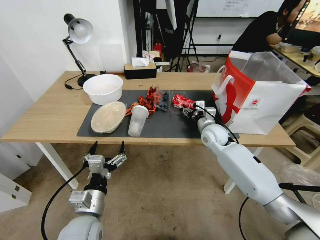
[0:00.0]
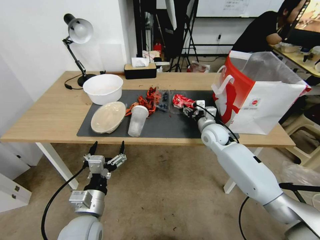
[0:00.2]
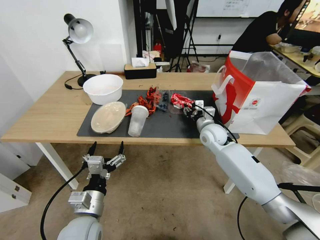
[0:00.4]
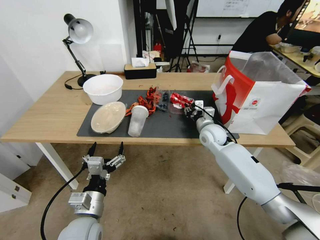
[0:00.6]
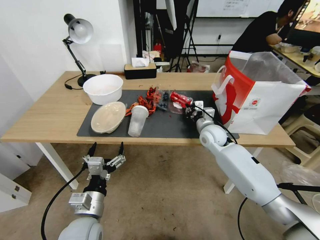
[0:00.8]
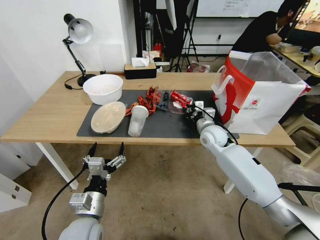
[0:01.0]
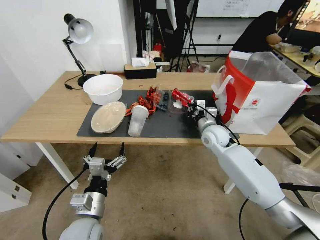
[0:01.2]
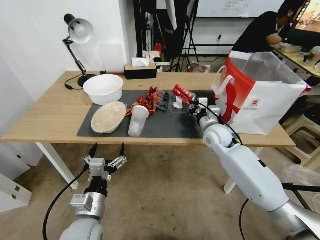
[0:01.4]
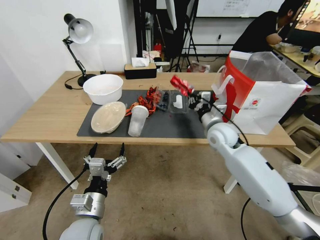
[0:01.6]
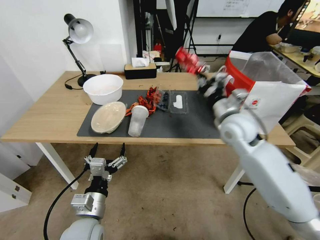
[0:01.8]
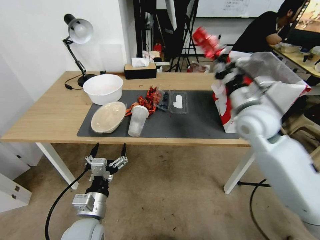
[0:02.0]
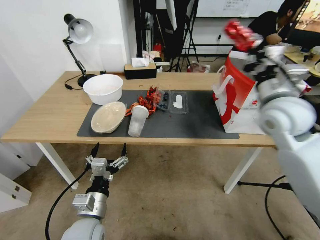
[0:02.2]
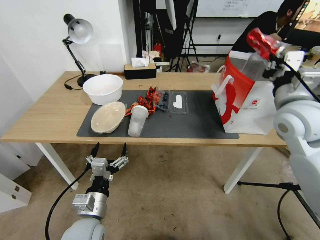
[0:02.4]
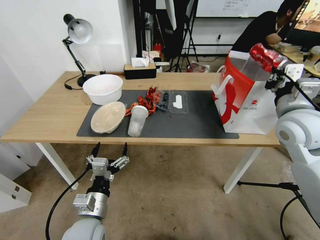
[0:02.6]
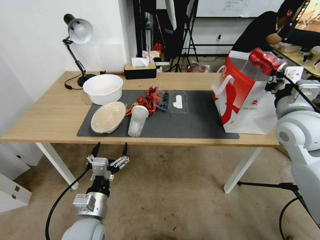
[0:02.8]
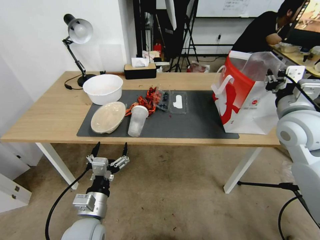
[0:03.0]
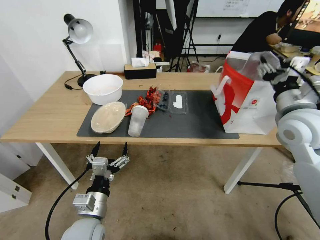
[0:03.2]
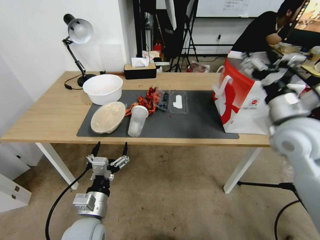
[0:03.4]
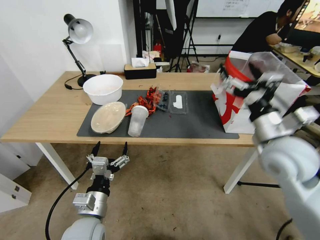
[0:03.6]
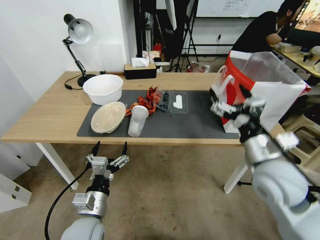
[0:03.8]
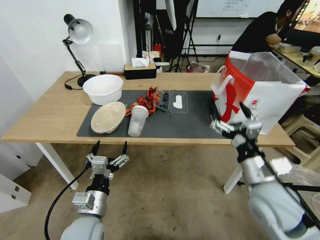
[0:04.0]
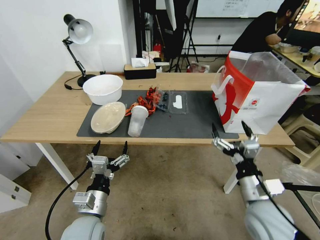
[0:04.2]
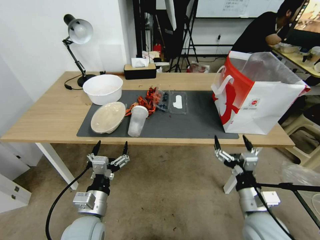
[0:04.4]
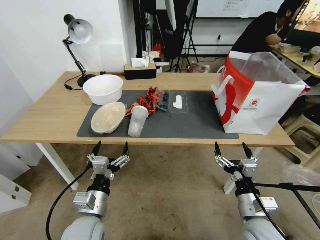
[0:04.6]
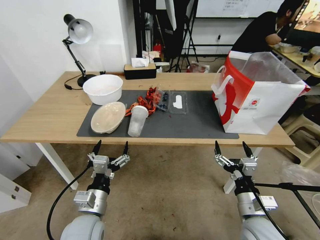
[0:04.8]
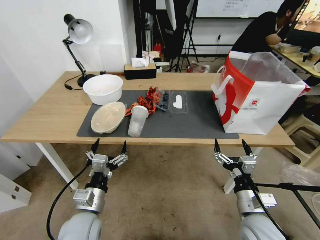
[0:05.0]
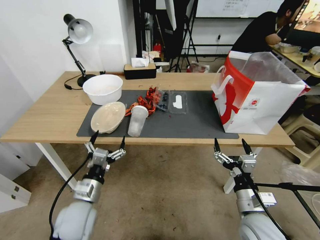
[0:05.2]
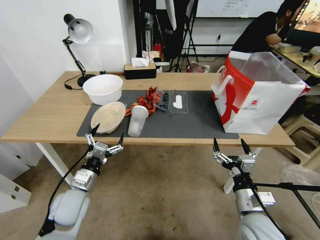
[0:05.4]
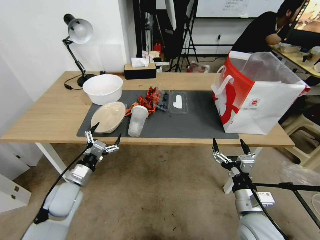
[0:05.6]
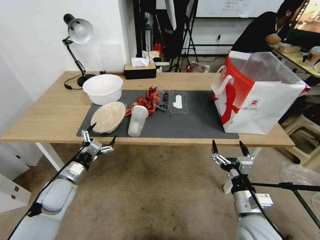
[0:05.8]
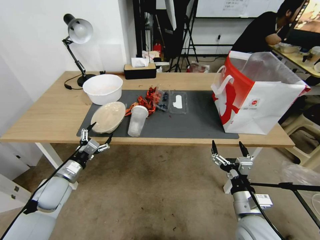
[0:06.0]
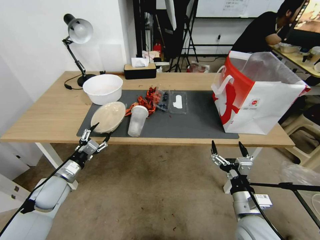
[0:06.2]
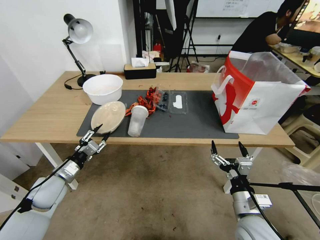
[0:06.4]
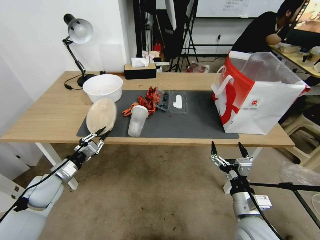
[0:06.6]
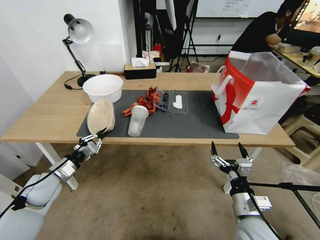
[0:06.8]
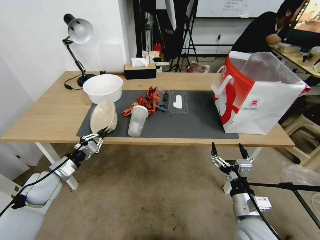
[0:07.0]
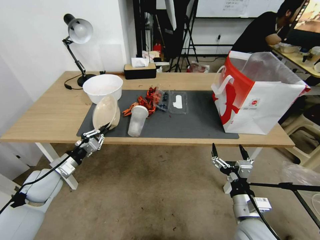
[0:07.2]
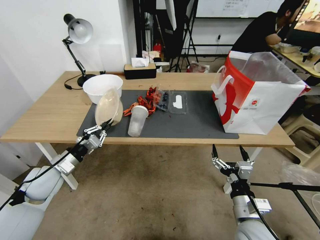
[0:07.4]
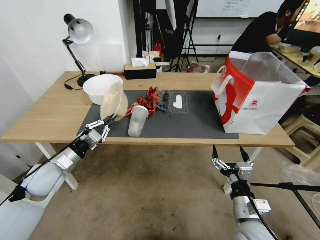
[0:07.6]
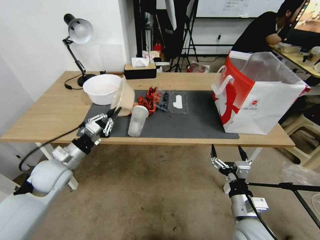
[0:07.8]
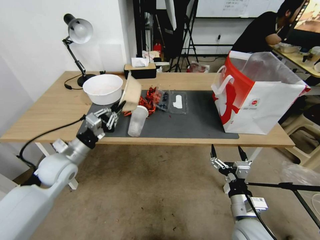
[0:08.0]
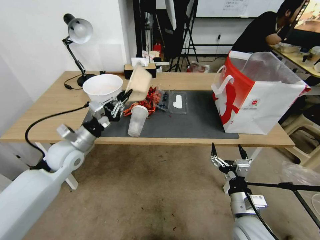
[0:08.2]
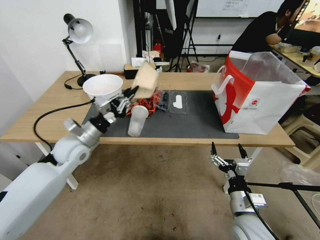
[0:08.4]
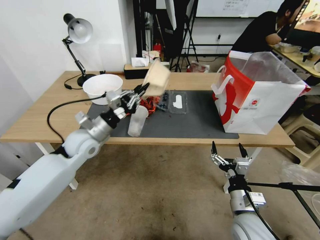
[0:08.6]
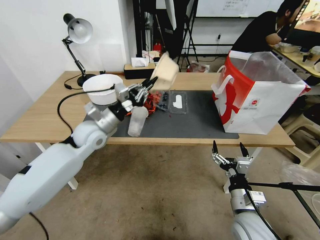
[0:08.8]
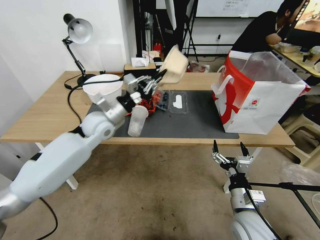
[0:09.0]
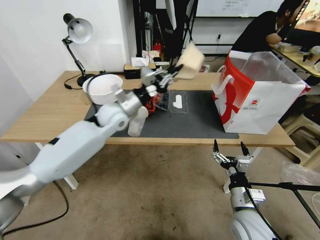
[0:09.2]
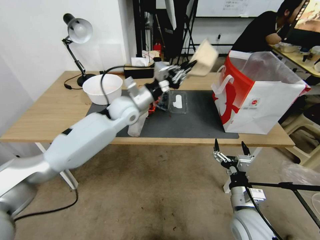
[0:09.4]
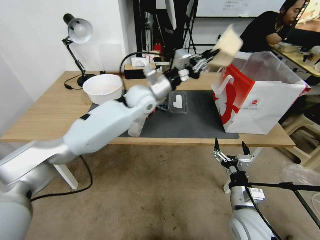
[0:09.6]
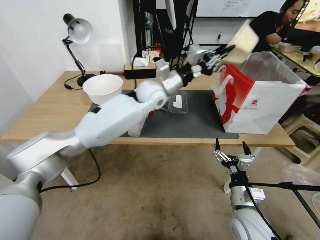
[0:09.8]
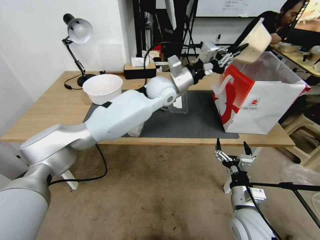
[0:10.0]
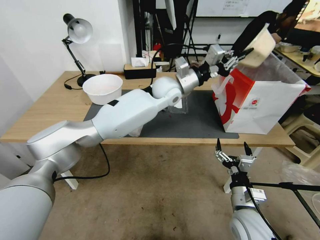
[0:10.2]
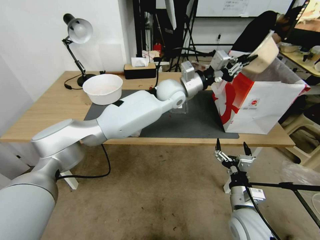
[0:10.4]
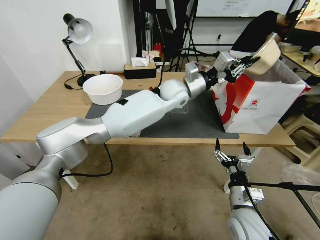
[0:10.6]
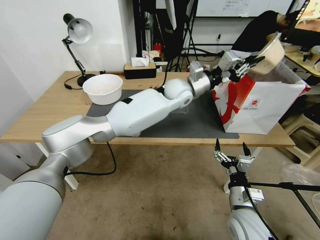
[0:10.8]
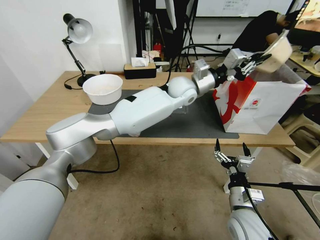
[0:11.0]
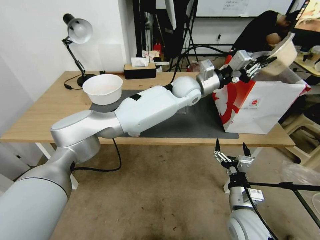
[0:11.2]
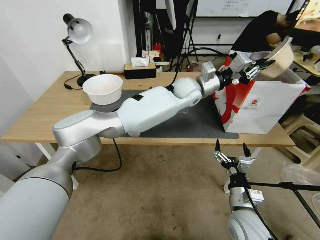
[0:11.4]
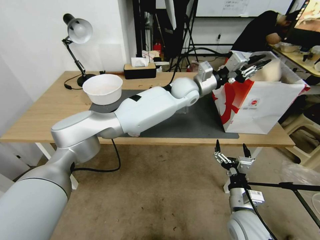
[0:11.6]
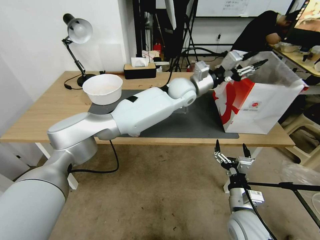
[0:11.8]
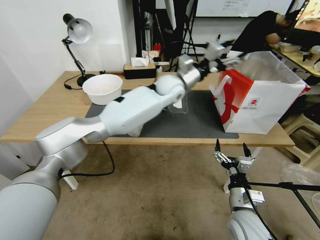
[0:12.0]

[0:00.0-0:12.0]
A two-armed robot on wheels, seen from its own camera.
0:00.0 to 0:01.6: The right gripper changes place by about 5 cm, and closes.
0:01.6 to 0:03.0: The right gripper is displaced upward, to the right and backward by roughly 20 cm.
0:03.0 to 0:04.4: The right gripper moves downward and backward, roughly 30 cm, and opens up.
0:04.4 to 0:06.0: The left gripper is displaced to the left and forward by some 20 cm.
0:06.0 to 0:07.6: The left gripper shifts about 5 cm upward, and closes its fingers.
0:07.6 to 0:09.0: The left gripper shifts about 20 cm to the right, forward and upward.
0:09.0 to 0:10.4: The left gripper moves to the right, approximately 25 cm.
0:10.4 to 0:12.0: The left gripper opens its fingers.

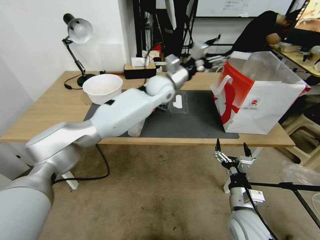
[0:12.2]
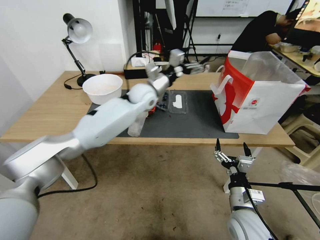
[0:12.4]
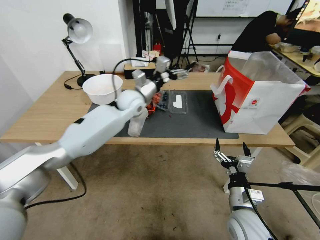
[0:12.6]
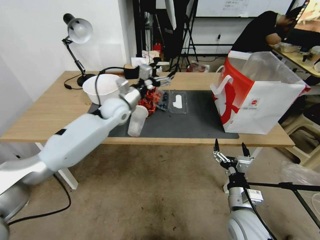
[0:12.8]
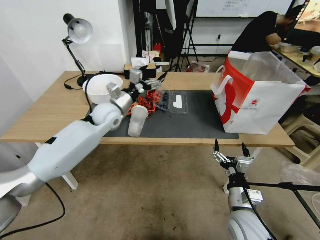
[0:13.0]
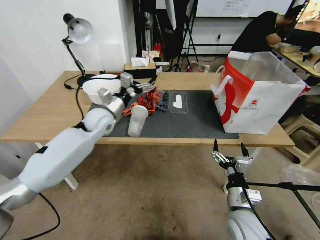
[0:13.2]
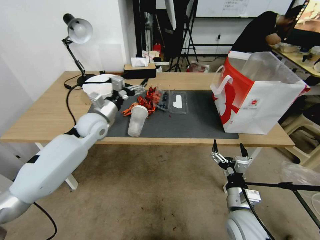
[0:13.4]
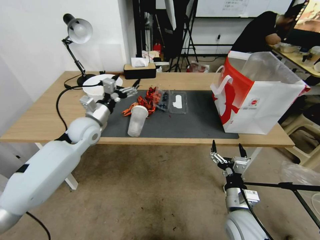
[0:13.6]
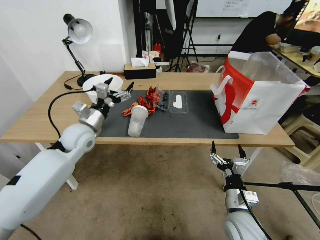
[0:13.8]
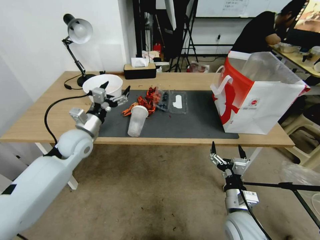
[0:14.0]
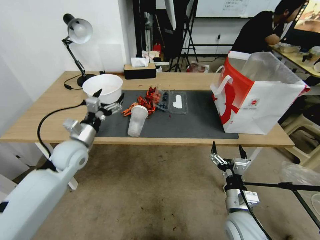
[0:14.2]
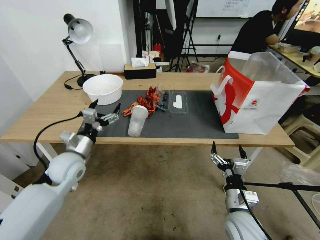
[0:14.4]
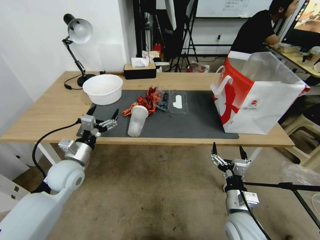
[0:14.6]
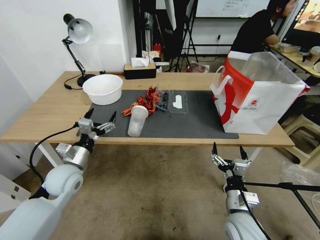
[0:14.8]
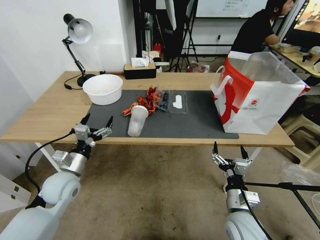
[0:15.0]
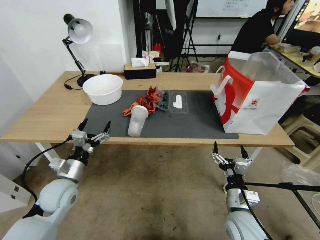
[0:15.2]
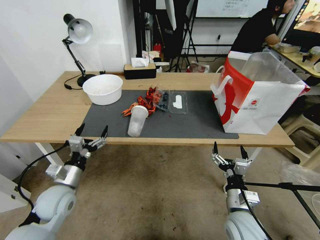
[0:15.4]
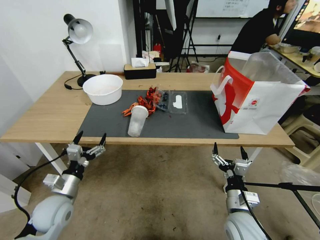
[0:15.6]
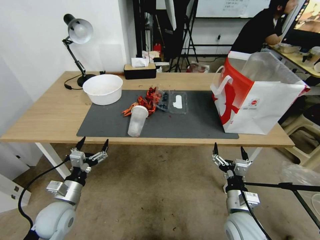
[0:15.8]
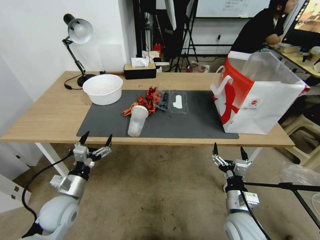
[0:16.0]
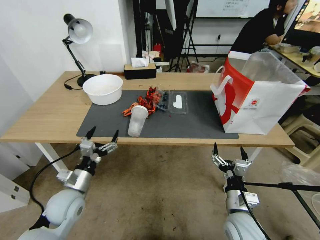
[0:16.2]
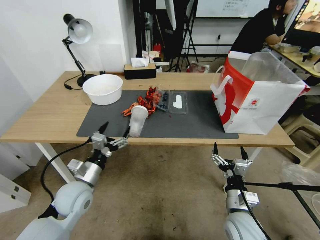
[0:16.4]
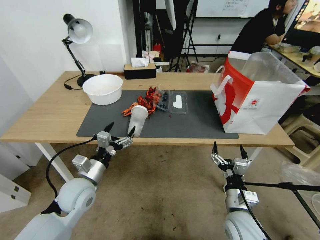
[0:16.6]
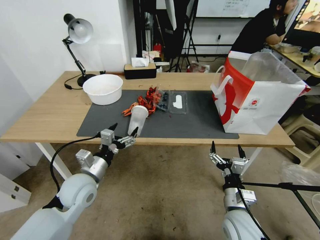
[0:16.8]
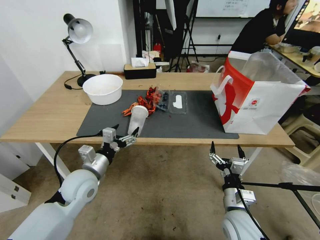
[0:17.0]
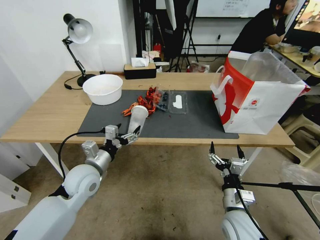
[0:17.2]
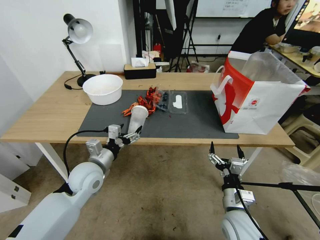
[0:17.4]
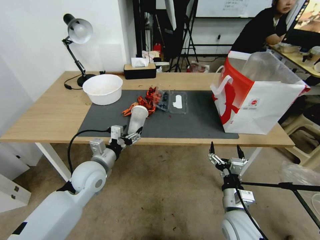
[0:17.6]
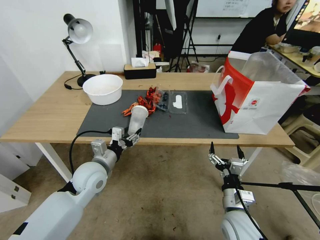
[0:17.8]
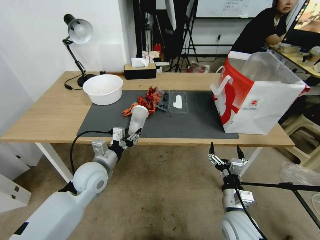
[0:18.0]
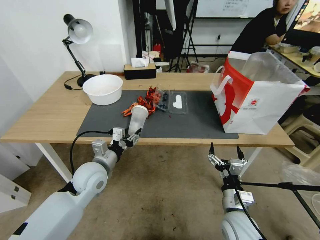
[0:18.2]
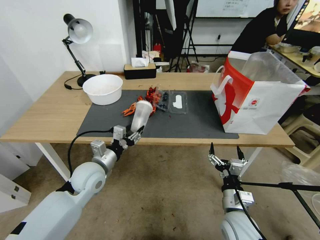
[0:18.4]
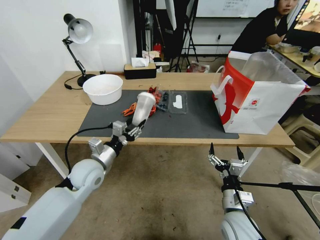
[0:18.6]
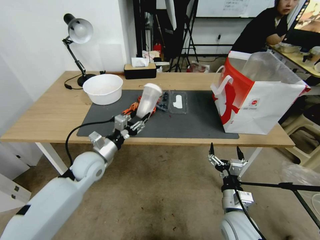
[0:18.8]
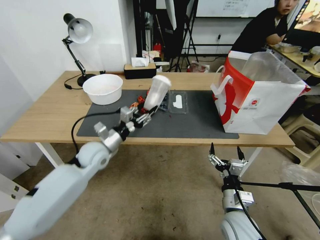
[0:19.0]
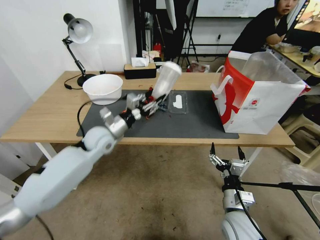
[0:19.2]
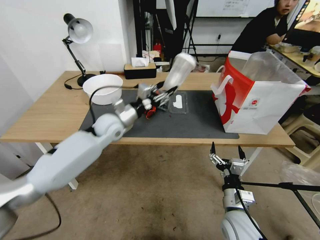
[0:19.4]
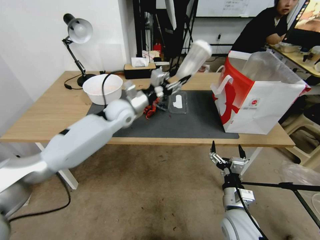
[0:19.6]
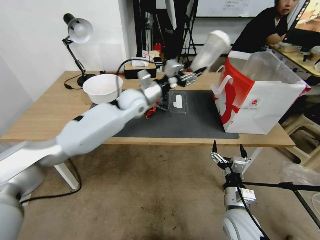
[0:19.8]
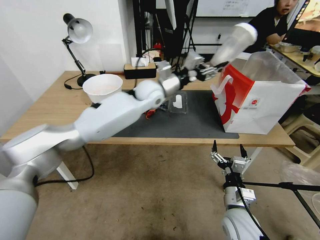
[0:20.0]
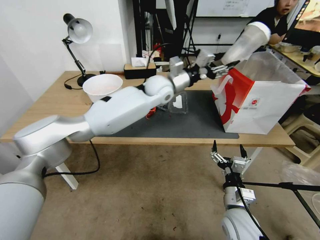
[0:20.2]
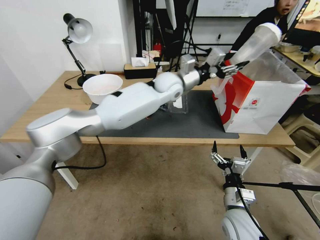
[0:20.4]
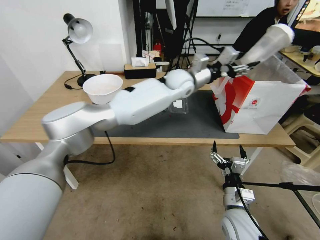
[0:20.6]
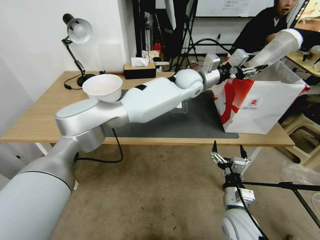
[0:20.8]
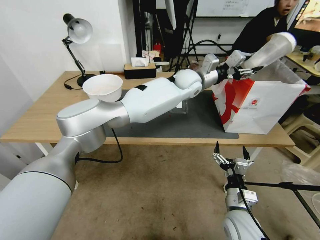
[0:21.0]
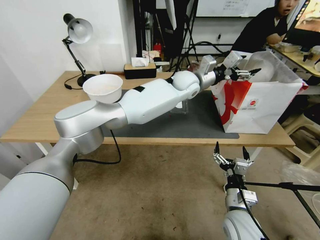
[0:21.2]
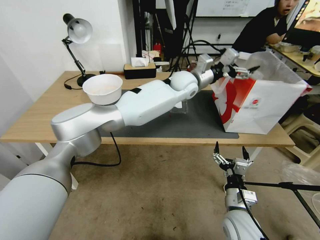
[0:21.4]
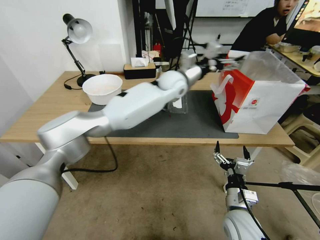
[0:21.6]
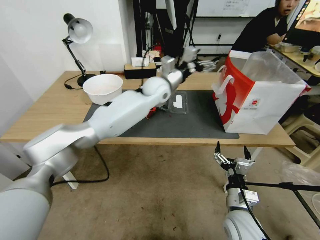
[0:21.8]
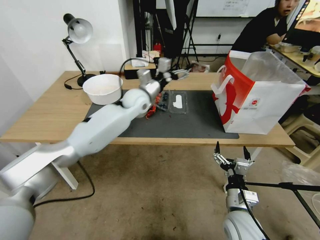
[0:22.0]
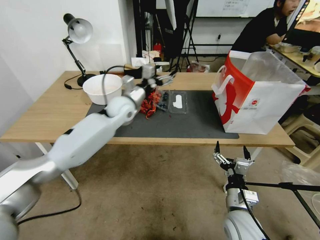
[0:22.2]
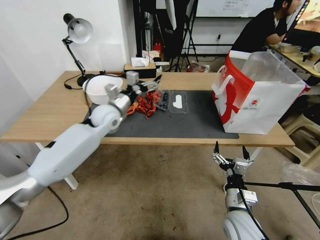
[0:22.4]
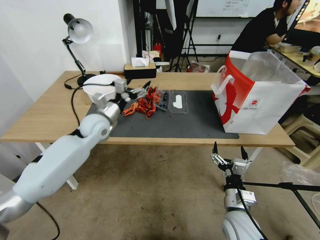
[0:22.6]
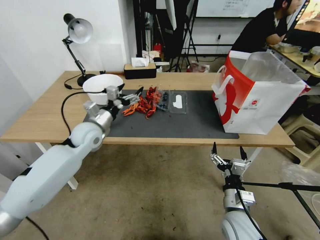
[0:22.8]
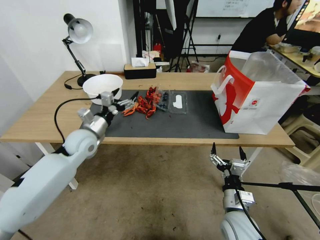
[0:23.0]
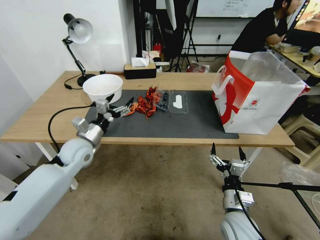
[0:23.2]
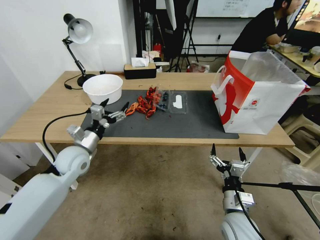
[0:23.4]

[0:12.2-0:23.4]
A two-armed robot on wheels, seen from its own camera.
0:12.2 to 0:13.8: The left gripper shifts about 30 cm to the left and backward.
0:13.8 to 0:15.4: The left gripper moves backward and downward, some 20 cm.
0:15.4 to 0:17.0: The left gripper travels to the right by some 10 cm.
0:17.0 to 0:18.6: The left gripper closes.
0:18.6 to 0:20.2: The left gripper moves to the right, forward and upward, about 35 cm.
0:20.2 to 0:21.8: The left gripper moves some 10 cm to the right and comes back, and opens up.
0:21.8 to 0:23.4: The left gripper shifts some 35 cm to the left, backward and downward.
